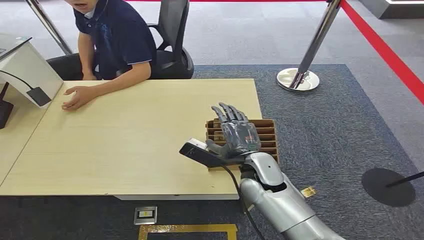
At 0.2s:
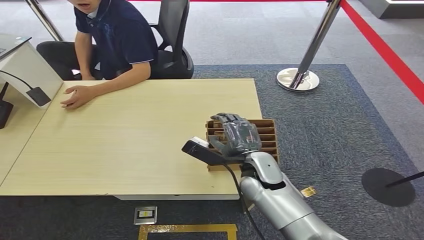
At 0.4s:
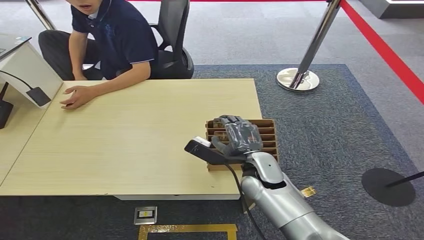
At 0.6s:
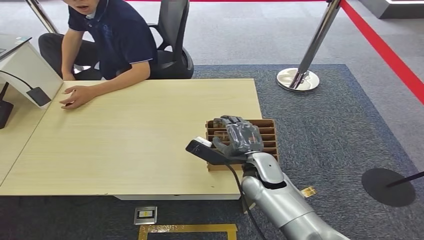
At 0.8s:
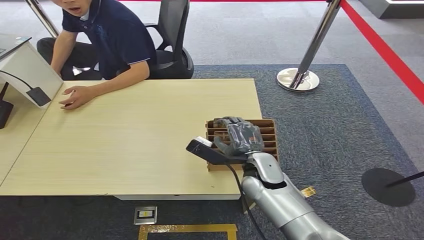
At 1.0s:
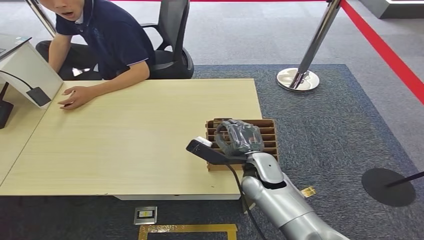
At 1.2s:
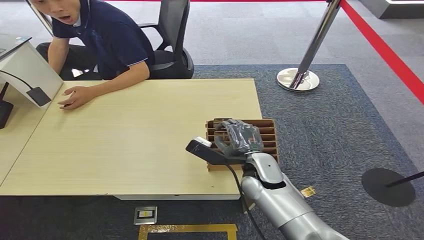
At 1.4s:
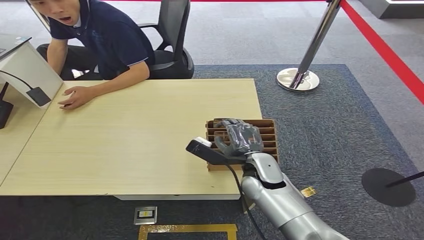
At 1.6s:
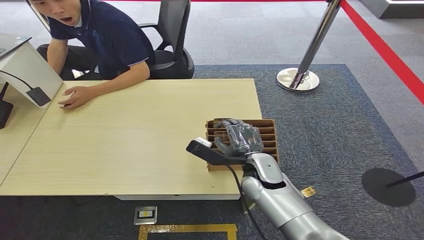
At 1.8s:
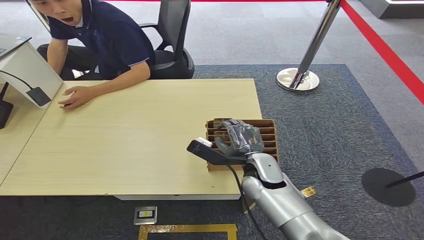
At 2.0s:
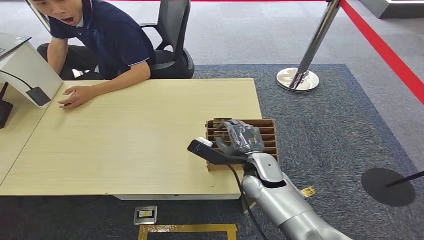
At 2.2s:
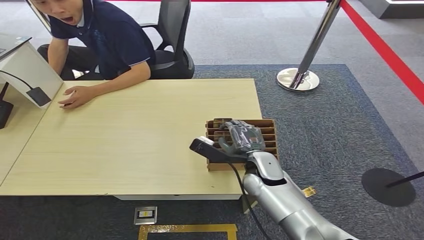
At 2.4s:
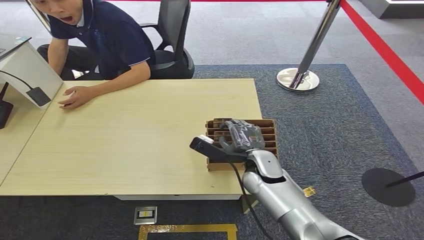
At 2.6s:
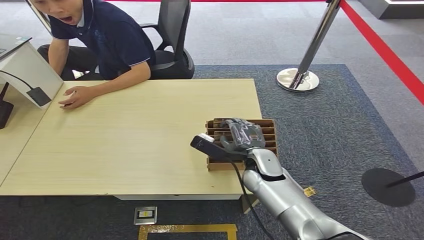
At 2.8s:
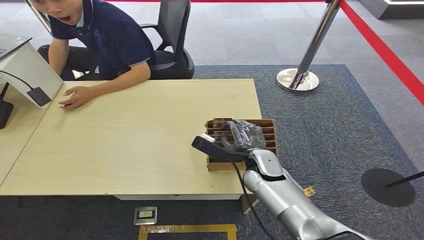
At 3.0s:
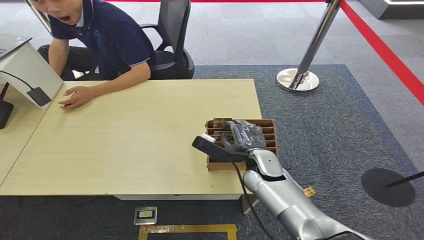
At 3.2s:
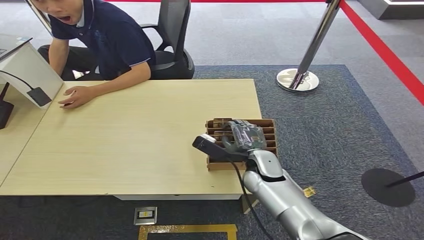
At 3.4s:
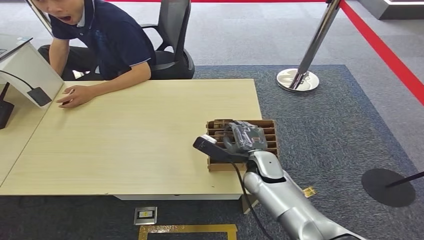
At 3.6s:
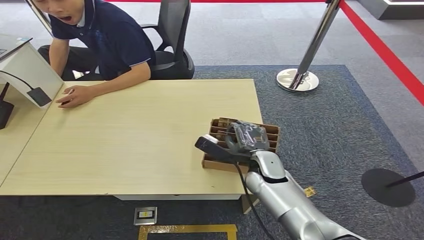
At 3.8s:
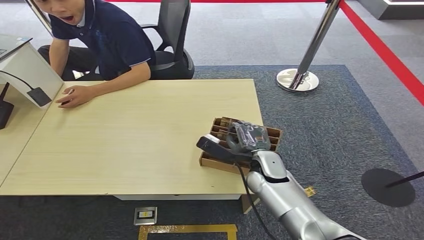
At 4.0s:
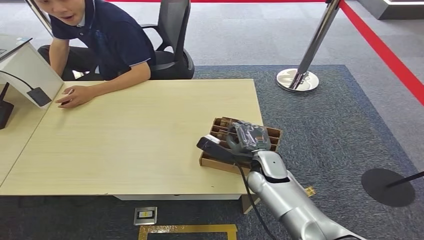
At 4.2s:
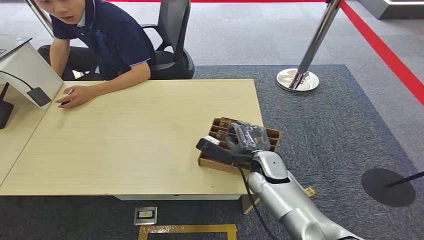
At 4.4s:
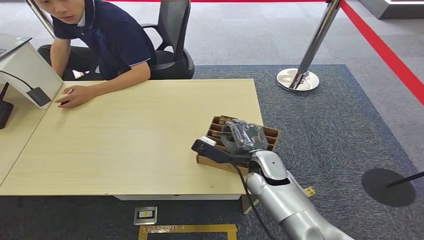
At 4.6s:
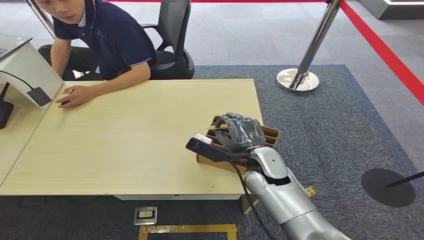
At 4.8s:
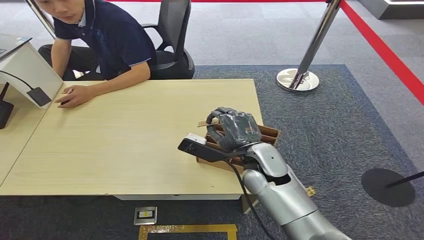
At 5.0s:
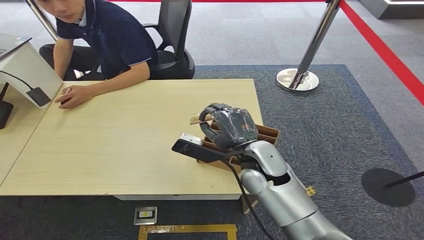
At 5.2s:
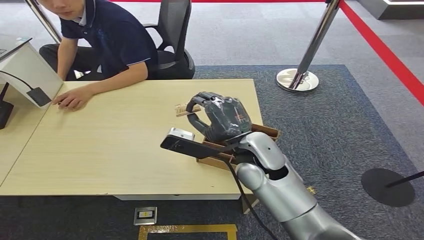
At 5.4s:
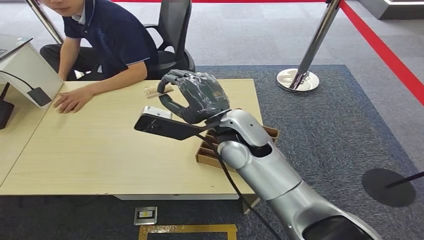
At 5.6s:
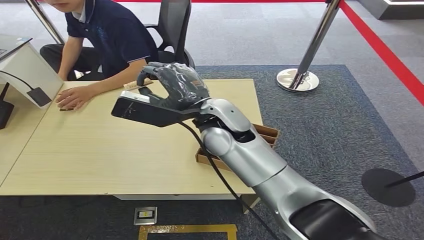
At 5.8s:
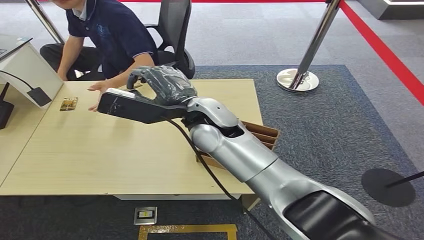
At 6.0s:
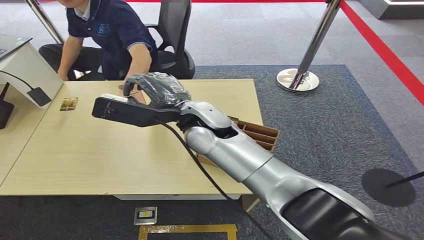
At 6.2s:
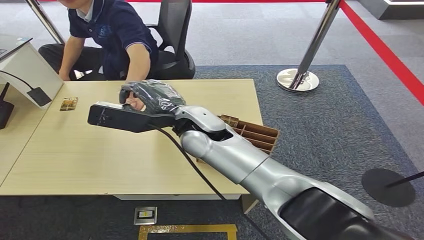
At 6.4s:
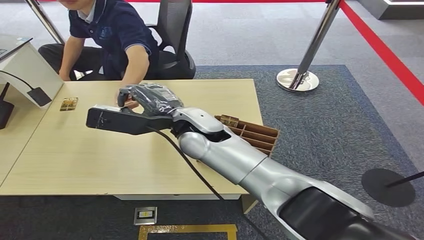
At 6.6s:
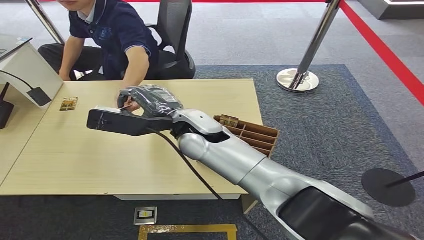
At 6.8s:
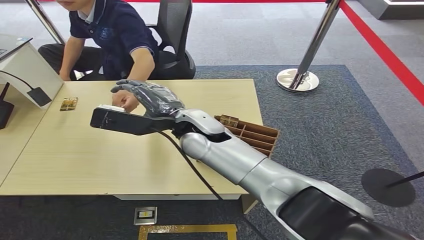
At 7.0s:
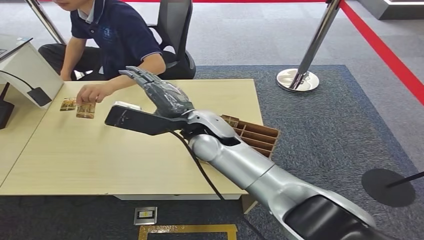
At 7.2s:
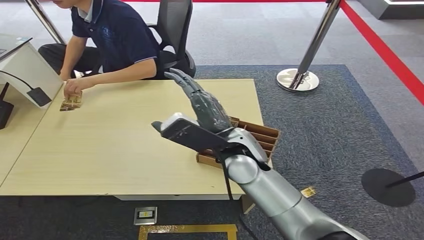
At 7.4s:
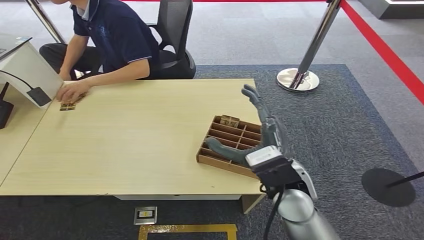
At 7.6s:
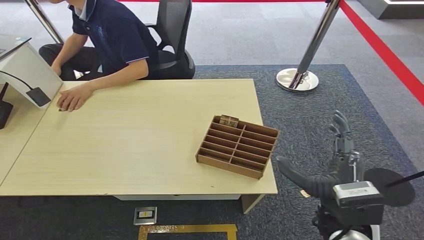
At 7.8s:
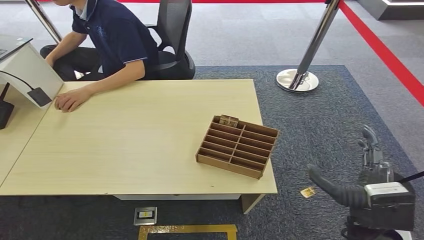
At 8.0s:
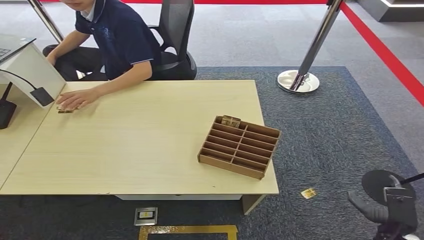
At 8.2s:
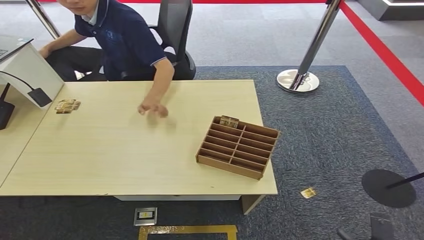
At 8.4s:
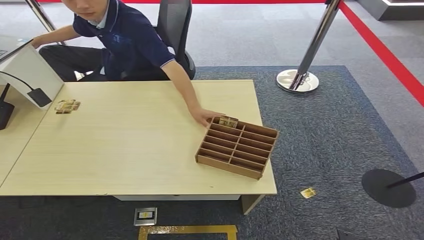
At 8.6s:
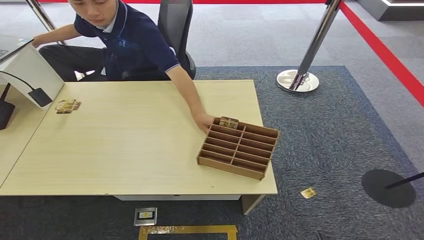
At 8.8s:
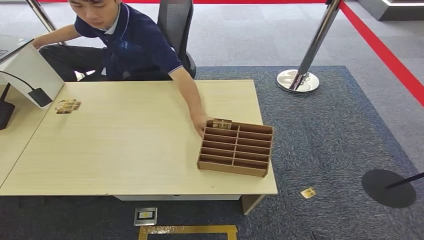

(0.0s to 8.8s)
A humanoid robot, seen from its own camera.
Step, 0.0s - 4.8s: Pick up the room card from the card holder.
Step, 5.0s - 8.8s: Hand the room card to the target.
1.4s - 4.4s: The hands move only a little.
4.4s - 5.8s: The right hand heads upward and to the left, covering some 20 cm.
5.8s - 7.4s: The right hand goes some 20 cm backward, to the right and downward.
7.4s - 8.8s: The right hand shifts about 35 cm downward and backward.
